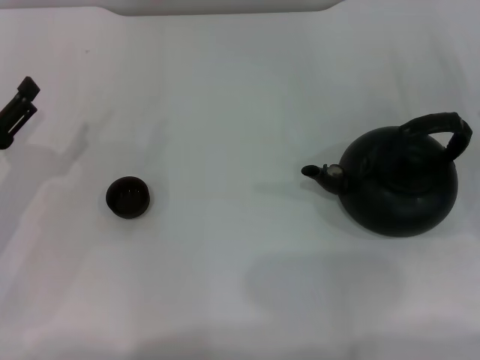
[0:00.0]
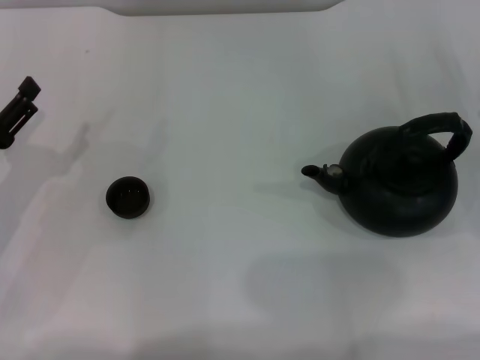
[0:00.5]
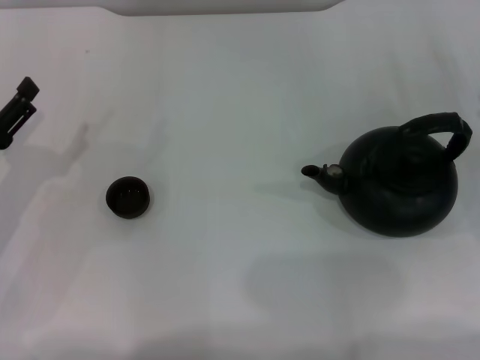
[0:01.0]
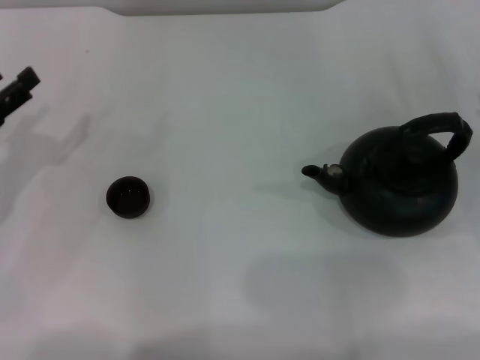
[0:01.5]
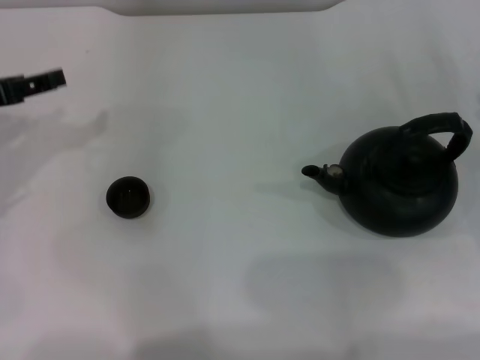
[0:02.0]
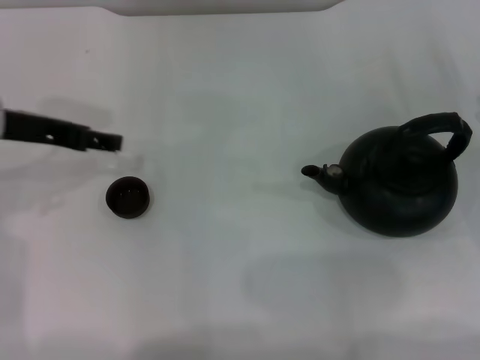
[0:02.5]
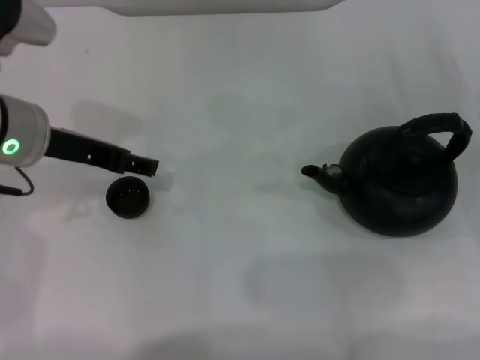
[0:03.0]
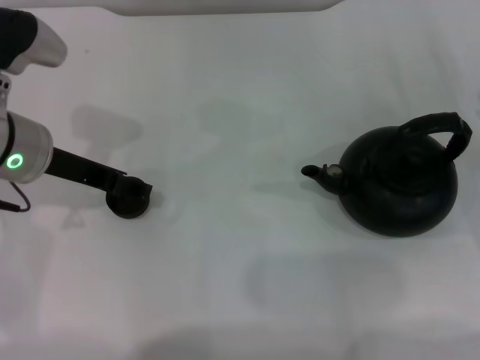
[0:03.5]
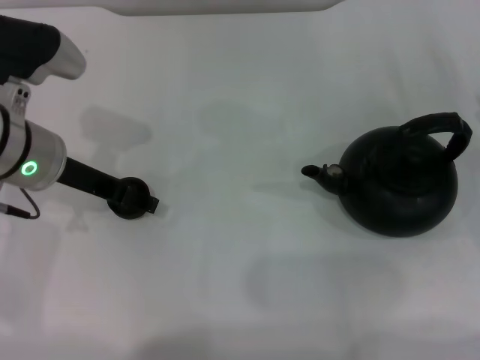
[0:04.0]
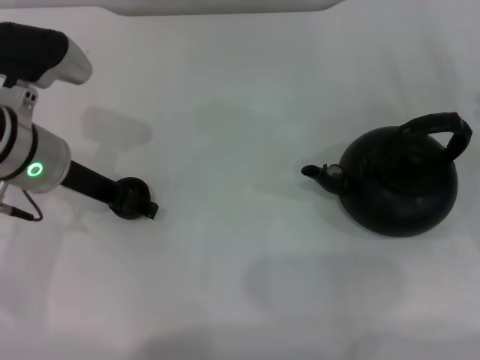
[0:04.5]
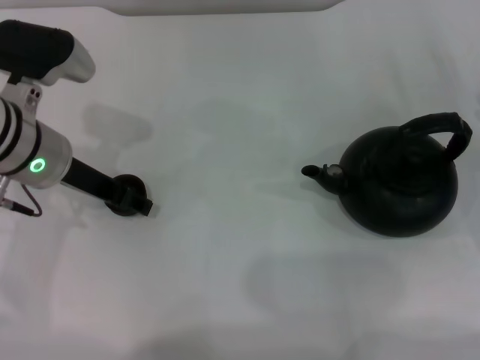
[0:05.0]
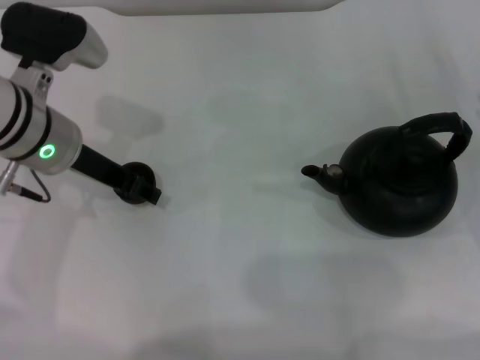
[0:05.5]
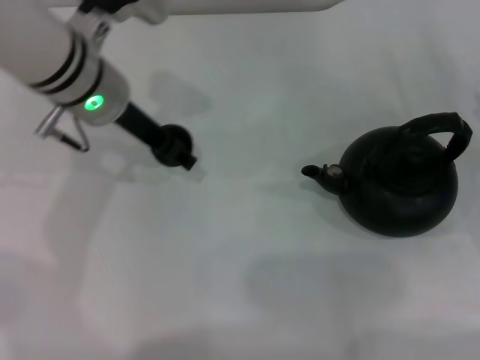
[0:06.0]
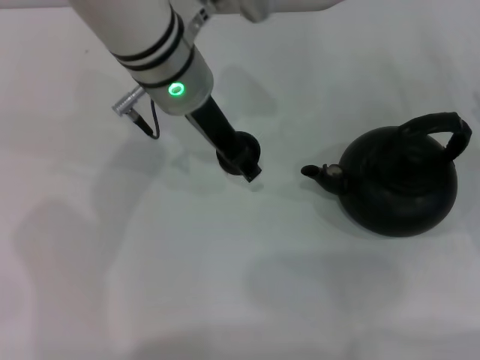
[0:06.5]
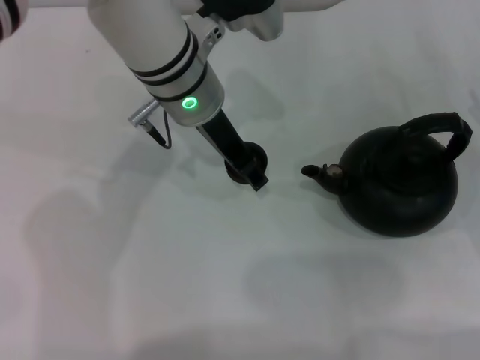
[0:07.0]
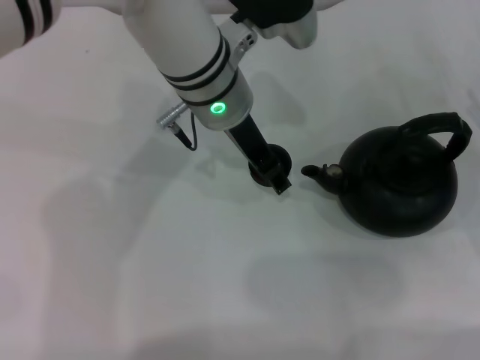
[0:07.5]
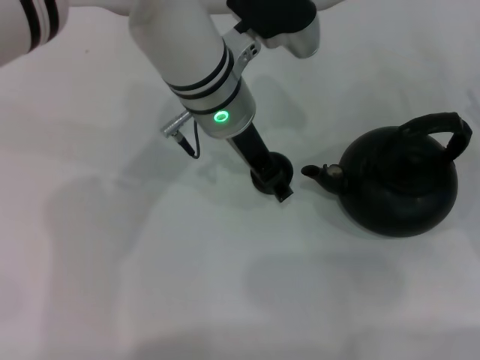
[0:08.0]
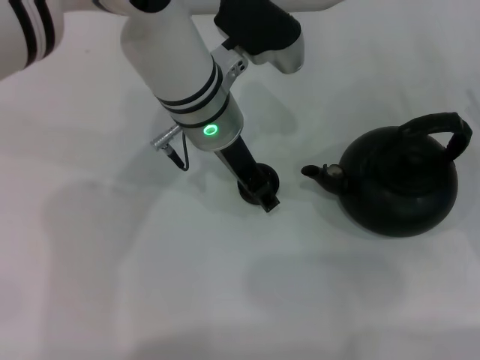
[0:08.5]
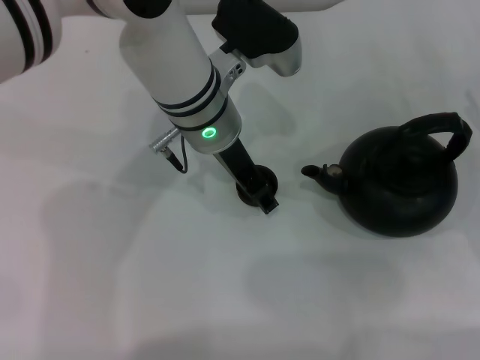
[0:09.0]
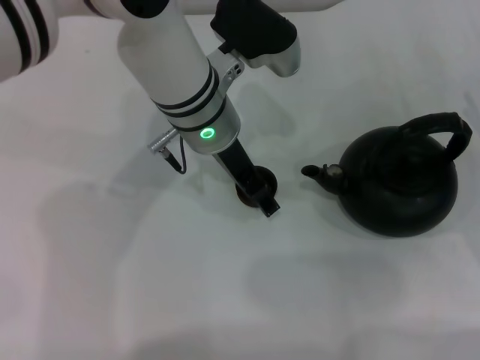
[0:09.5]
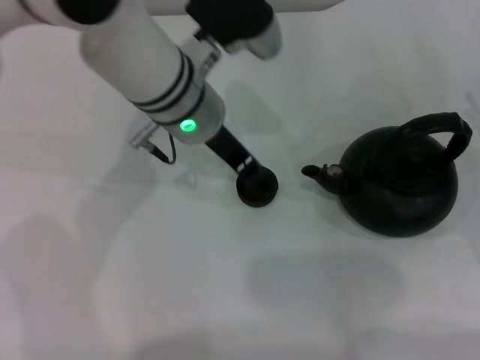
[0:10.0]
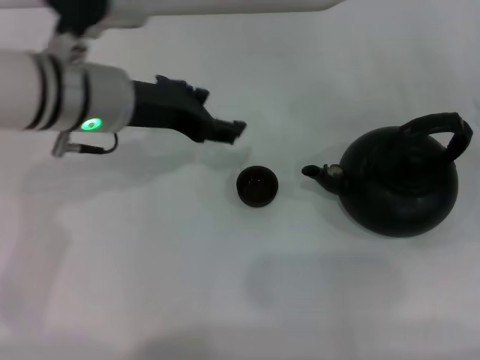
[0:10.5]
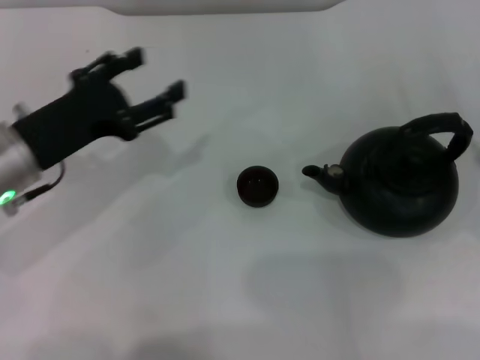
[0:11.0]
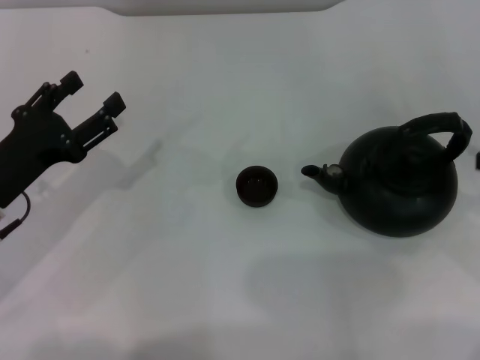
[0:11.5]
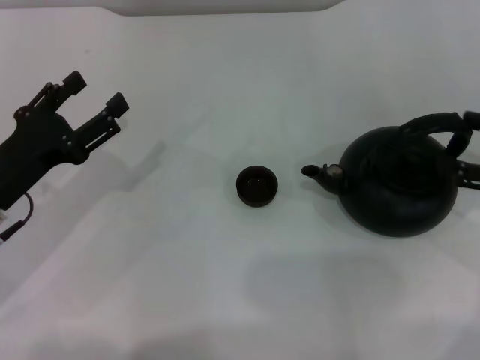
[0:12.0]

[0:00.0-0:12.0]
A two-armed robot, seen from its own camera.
Task of the whole recording: Grasp the handle of the teapot with one hand and pour tea into the teacup.
Step, 0:00.0 to 0:05.5: Pick up the teacup with the left gripper.
Step, 0:06.0 to 0:10.0: Place the teacup in the center of view with the left gripper.
0:00.0 to 0:02.0: The left gripper shifts some 10 cm upward and forward.
0:02.0 to 0:04.0: The left gripper moves to the right, about 10 cm.
0:04.0 to 0:06.0: The left gripper is displaced to the right and forward by some 10 cm, and closes.
0:06.0 to 0:08.0: The left gripper heads to the right, covering approximately 10 cm.
0:08.0 to 0:10.0: The left gripper opens its fingers.
0:10.0 to 0:12.0: The left gripper goes about 25 cm to the left, backward and downward. The right gripper moves upward, some 5 cm.

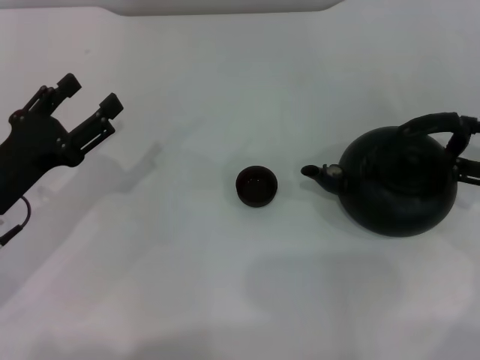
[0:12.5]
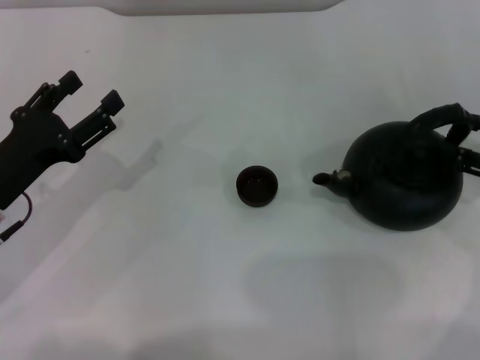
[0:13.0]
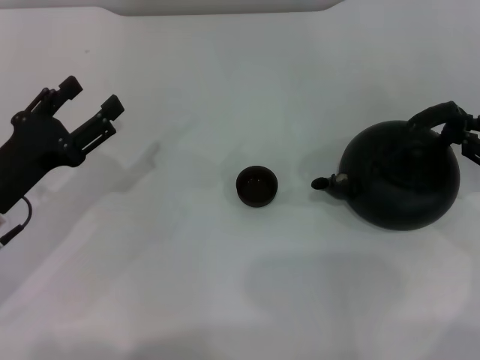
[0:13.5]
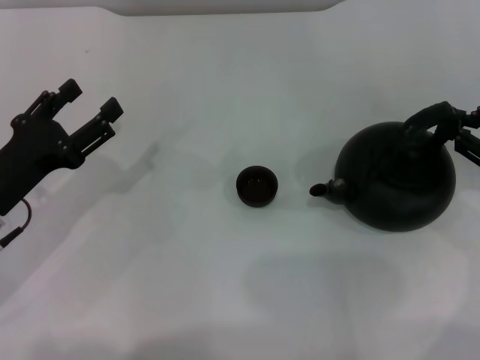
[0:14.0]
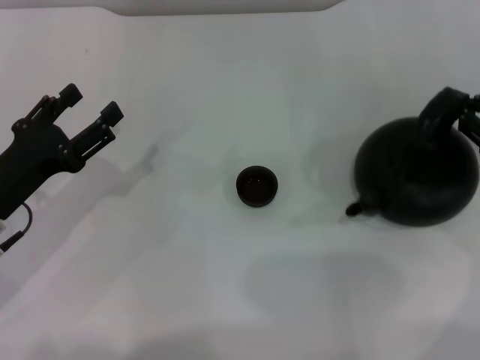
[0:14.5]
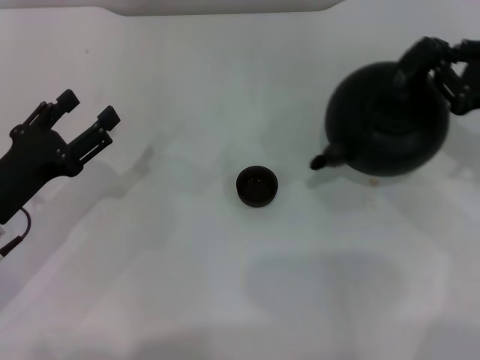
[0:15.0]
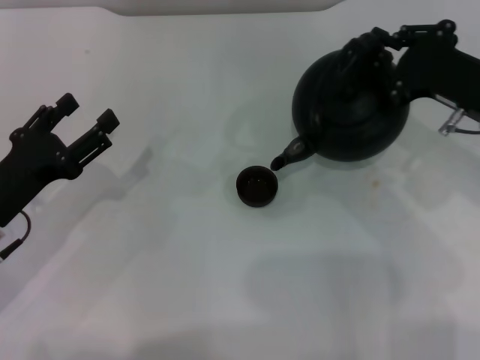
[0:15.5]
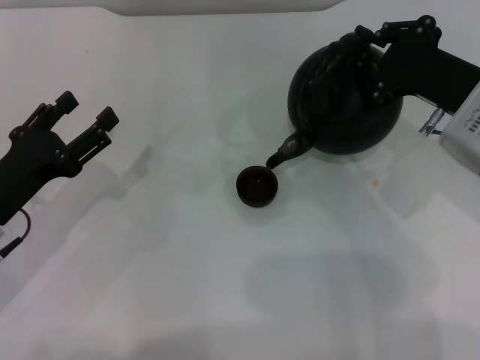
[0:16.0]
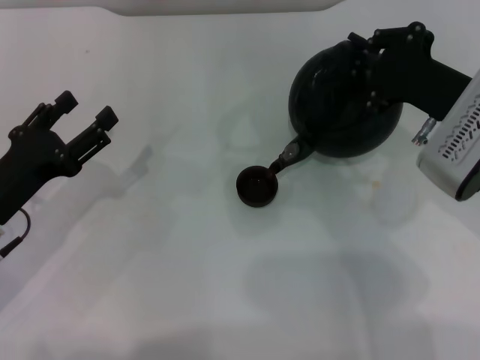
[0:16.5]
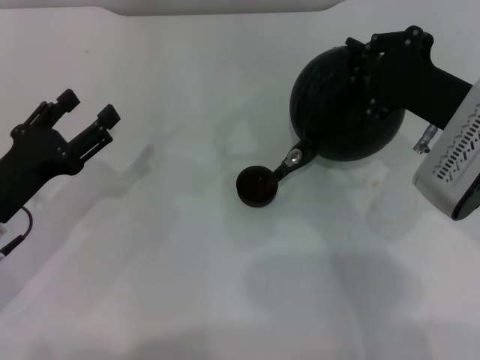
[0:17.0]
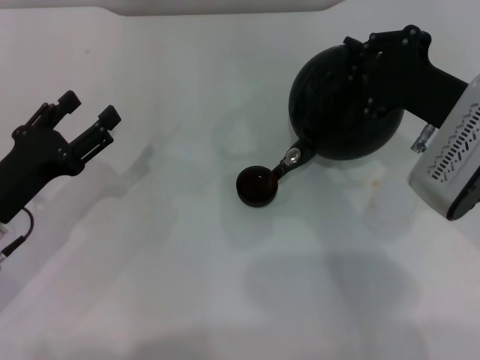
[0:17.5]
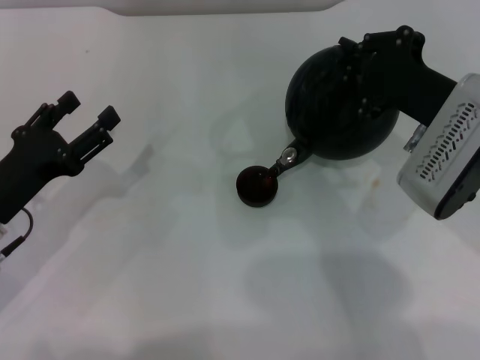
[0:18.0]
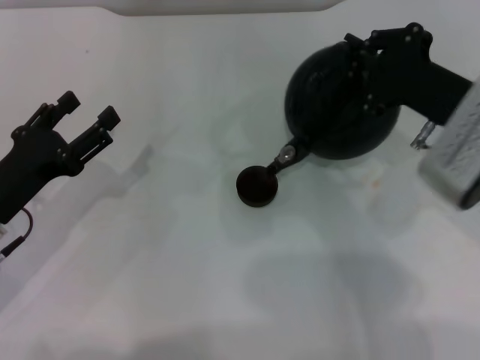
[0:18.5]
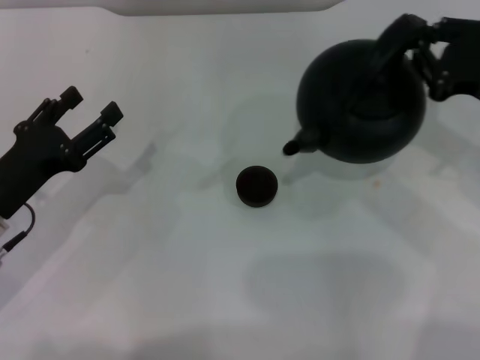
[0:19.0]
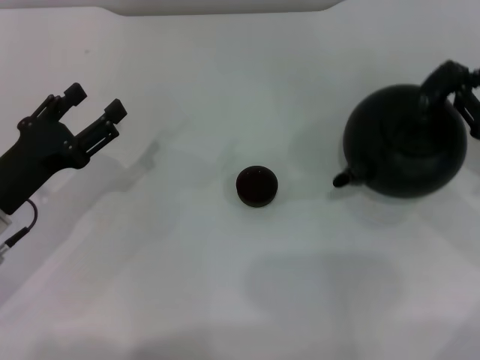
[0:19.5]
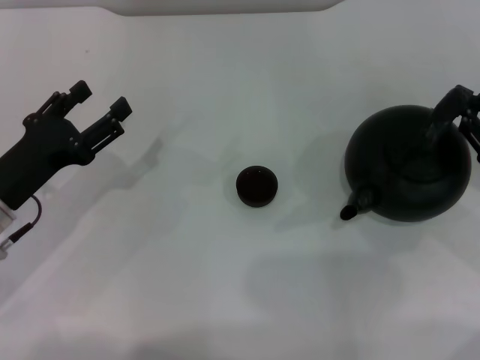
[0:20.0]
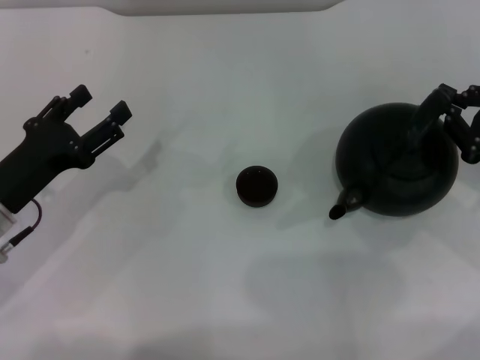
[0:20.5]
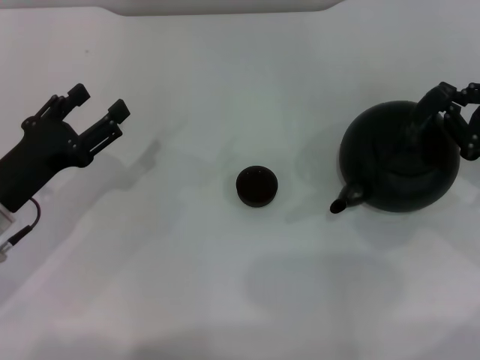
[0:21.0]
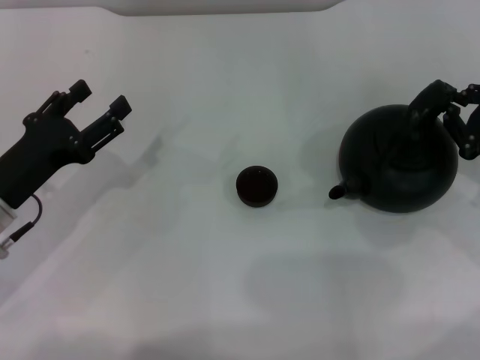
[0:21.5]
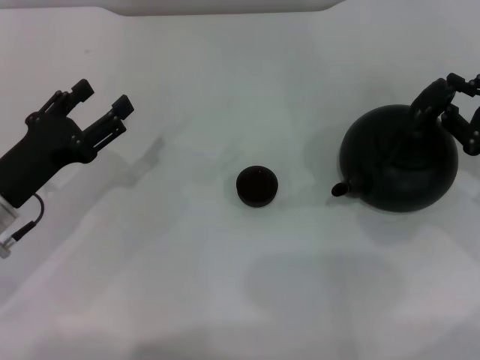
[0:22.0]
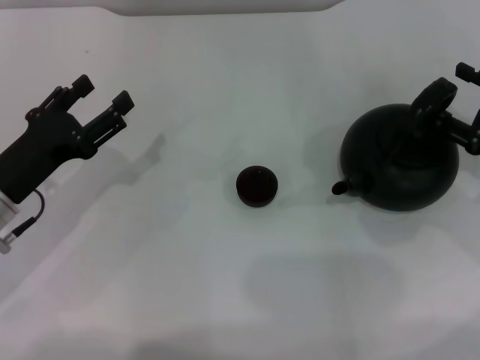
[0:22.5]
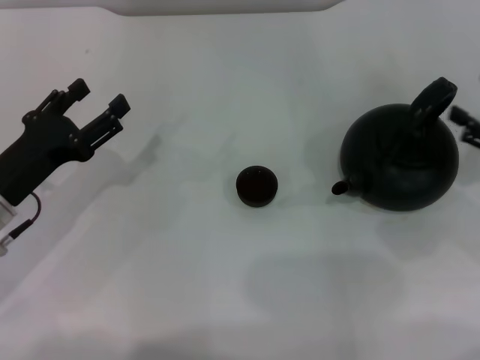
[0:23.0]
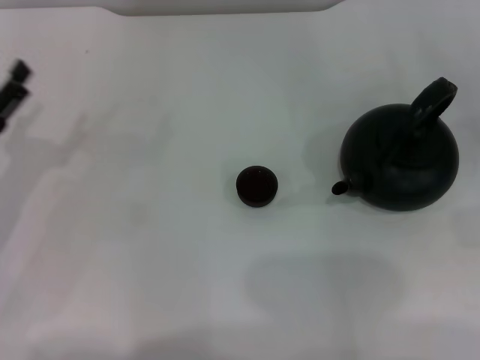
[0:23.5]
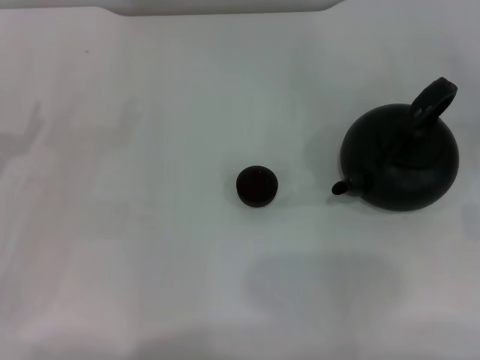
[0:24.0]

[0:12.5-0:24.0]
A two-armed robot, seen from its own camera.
Task of the whole recording: Grasp the handle of the teapot with one hand and pour tea into the teacup.
Step, 0:12.5 to 0:15.0: Pick up the teapot with the right gripper.
Step, 0:15.5 to 0:19.0: Pour tea into the teacup with the right gripper.
Step, 0:19.5 to 0:23.0: Put down the teapot with the right gripper.
0:12.5 to 0:14.5: The right gripper closes its fingers.
0:14.5 to 0:16.5: The right gripper shifts some 15 cm to the left.
0:16.5 to 0:18.5: The grippers stay close to where they were, moving slightly.
0:18.5 to 0:20.0: The right gripper heads to the right, covering roughly 15 cm.
0:20.0 to 0:22.0: The grippers move only a little.
0:22.0 to 0:24.0: The right gripper shifts about 10 cm to the right, and opens up. Meanwhile the left gripper shifts about 10 cm to the left.
